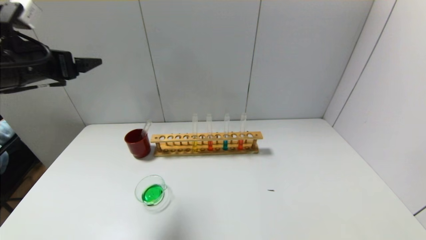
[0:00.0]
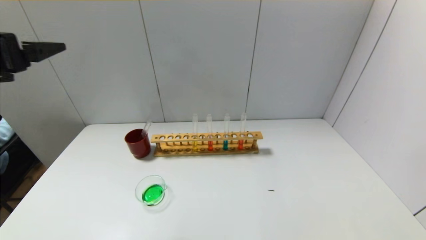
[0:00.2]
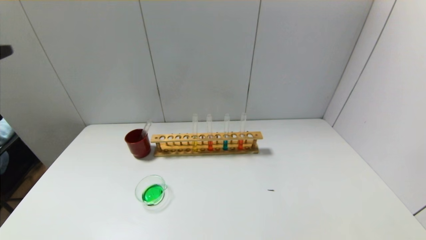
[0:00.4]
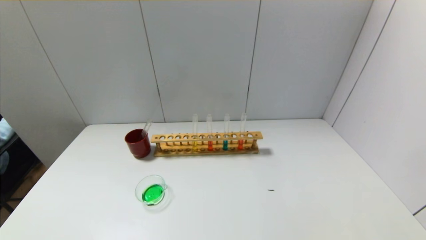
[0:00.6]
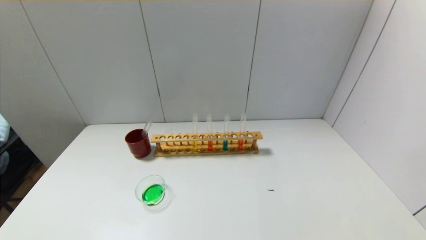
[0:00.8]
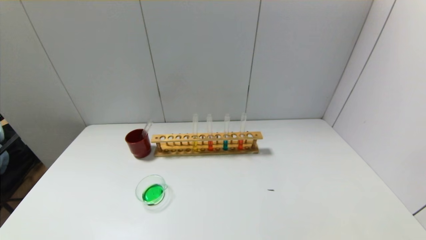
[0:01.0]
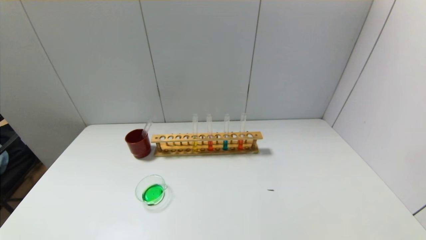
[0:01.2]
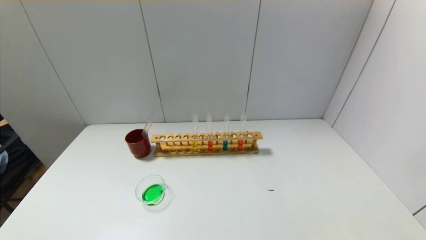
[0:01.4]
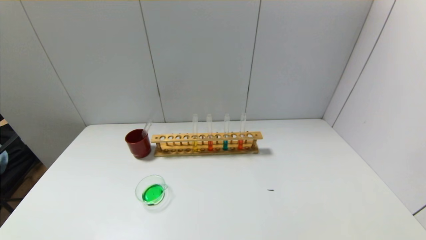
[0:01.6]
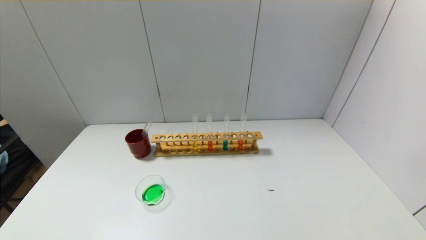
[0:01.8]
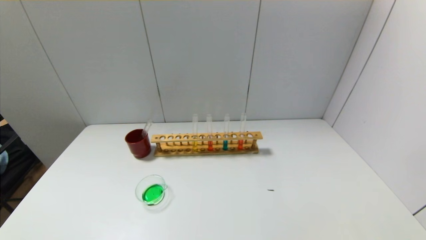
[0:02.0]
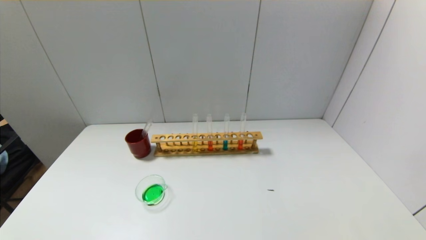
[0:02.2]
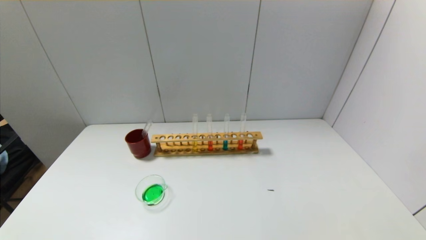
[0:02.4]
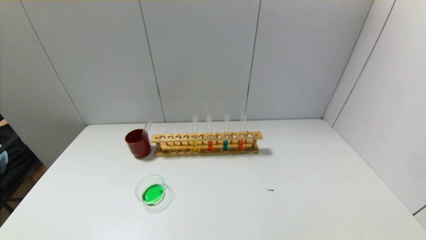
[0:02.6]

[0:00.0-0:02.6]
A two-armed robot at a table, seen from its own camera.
0:00.0 to 0:01.2: The left gripper travels backward and downward by about 35 cm.
